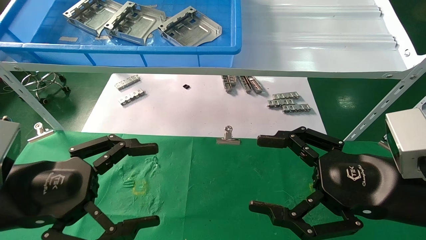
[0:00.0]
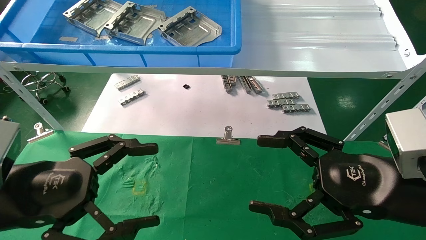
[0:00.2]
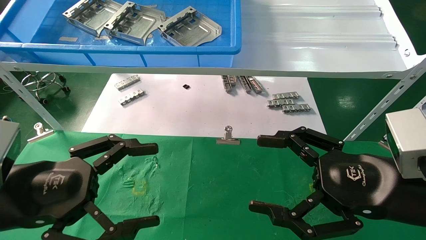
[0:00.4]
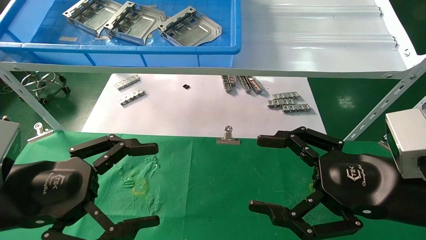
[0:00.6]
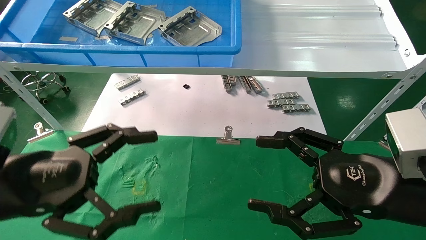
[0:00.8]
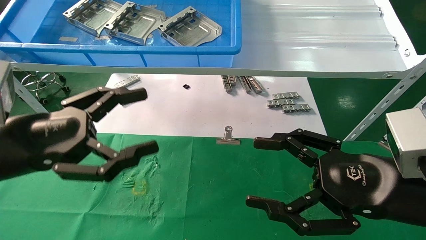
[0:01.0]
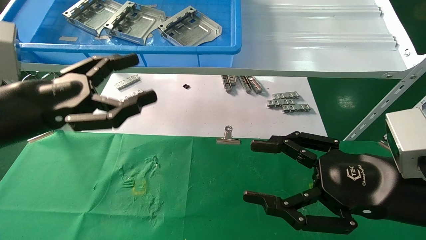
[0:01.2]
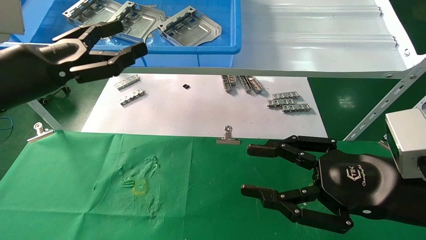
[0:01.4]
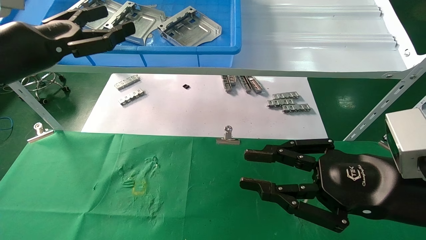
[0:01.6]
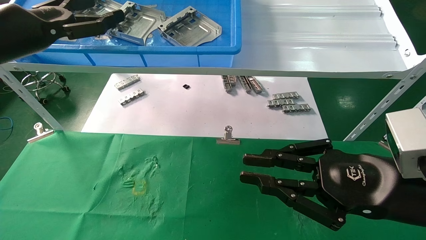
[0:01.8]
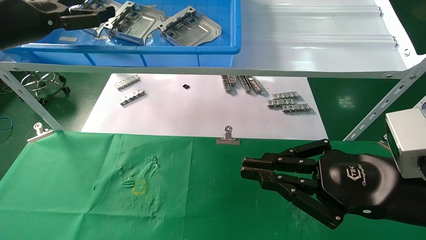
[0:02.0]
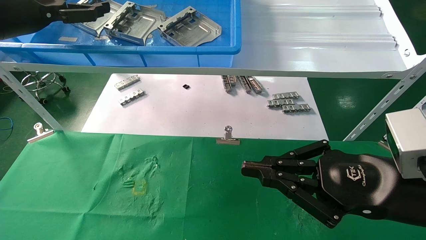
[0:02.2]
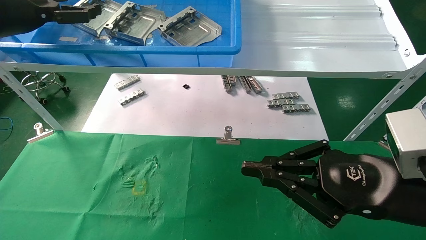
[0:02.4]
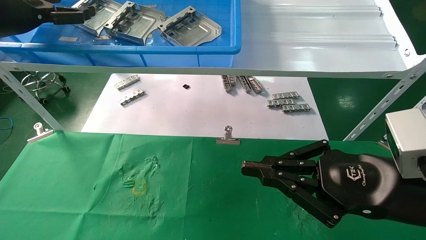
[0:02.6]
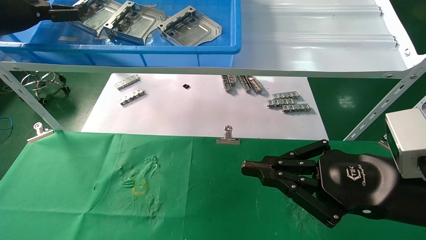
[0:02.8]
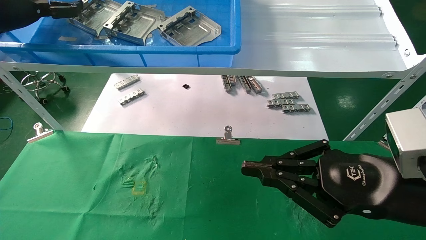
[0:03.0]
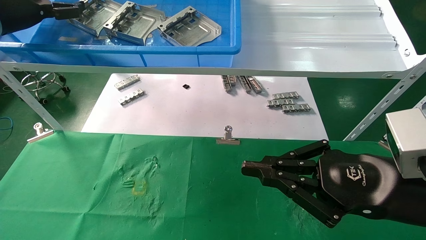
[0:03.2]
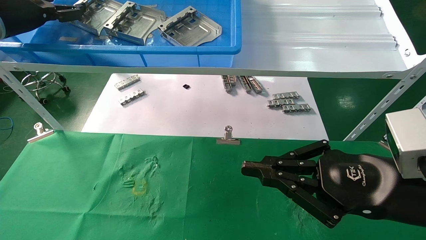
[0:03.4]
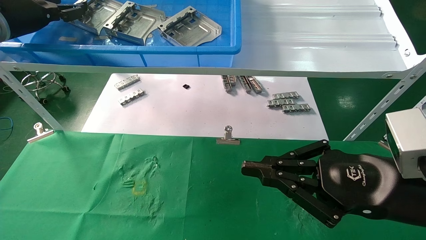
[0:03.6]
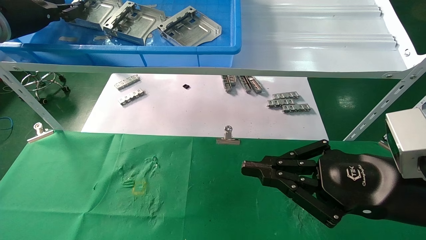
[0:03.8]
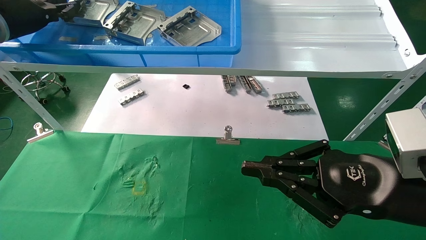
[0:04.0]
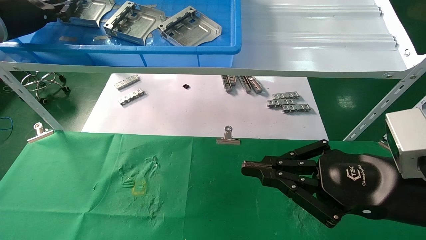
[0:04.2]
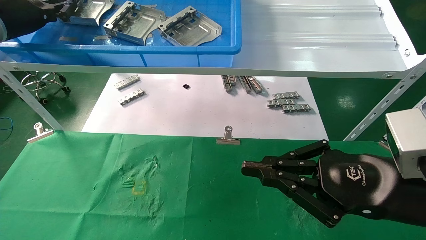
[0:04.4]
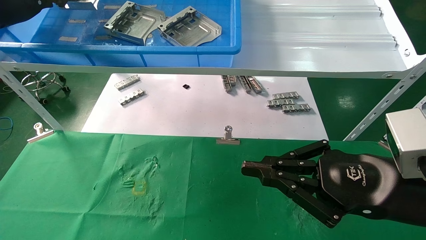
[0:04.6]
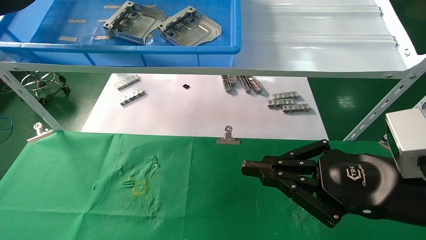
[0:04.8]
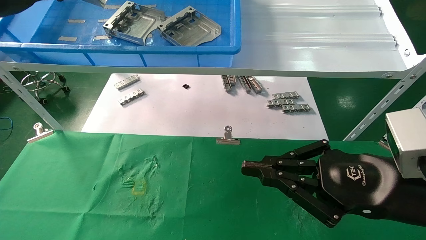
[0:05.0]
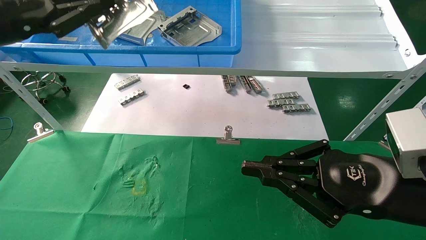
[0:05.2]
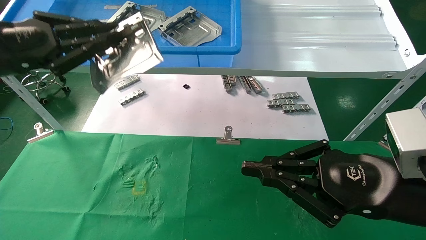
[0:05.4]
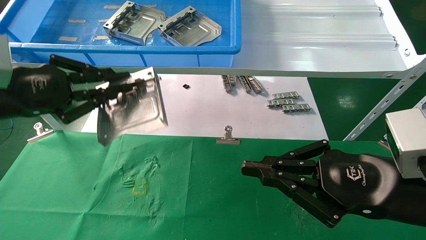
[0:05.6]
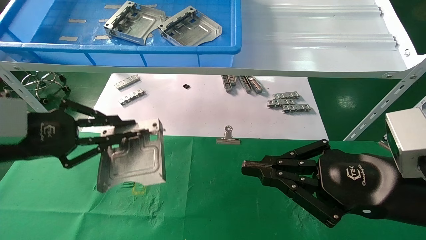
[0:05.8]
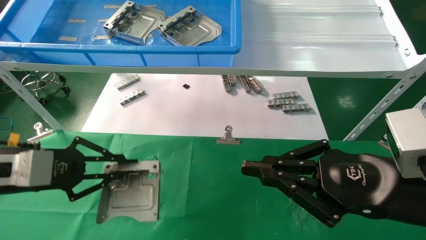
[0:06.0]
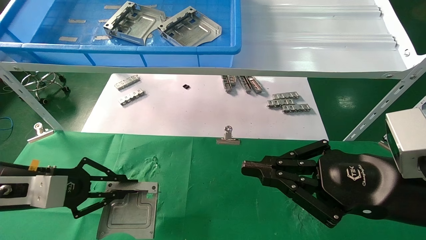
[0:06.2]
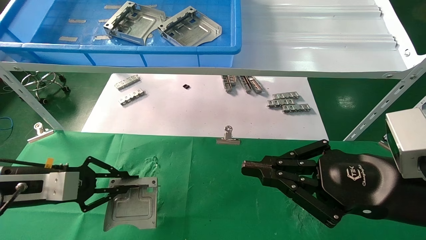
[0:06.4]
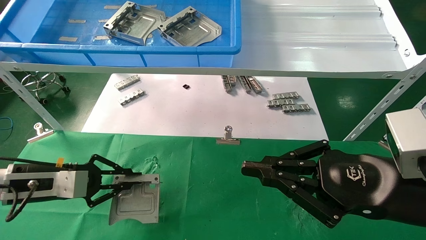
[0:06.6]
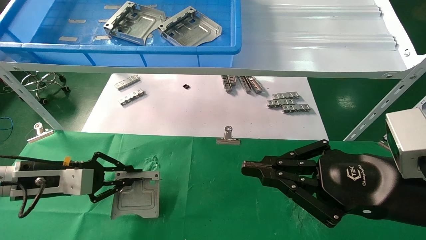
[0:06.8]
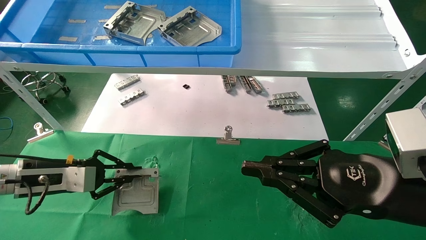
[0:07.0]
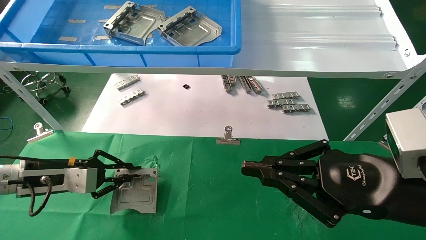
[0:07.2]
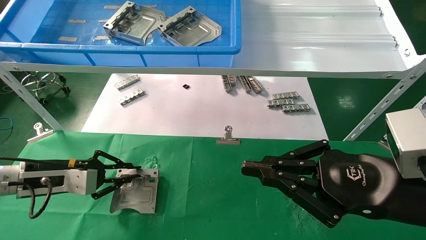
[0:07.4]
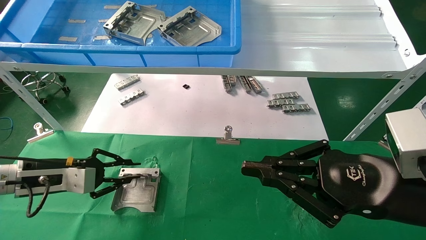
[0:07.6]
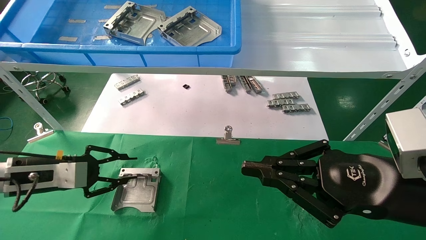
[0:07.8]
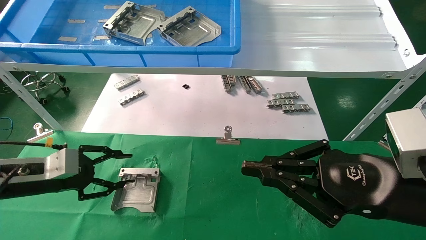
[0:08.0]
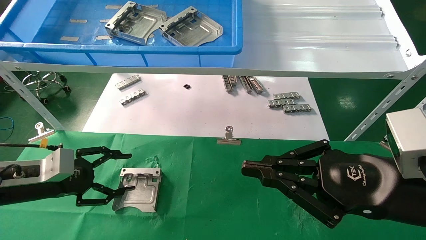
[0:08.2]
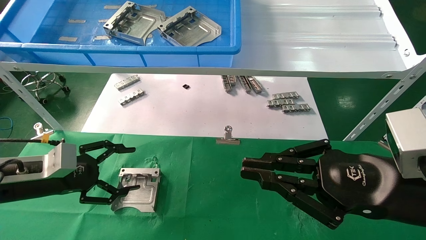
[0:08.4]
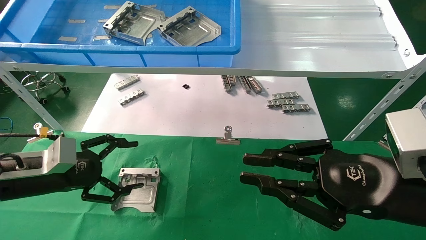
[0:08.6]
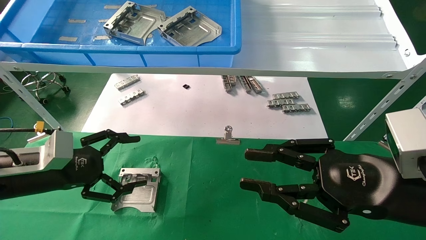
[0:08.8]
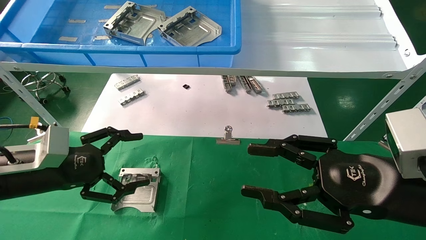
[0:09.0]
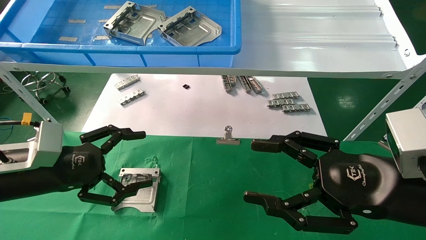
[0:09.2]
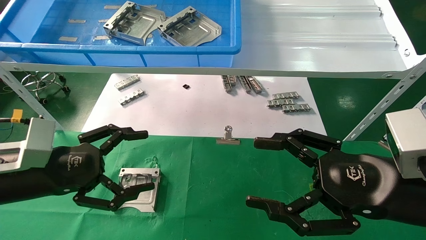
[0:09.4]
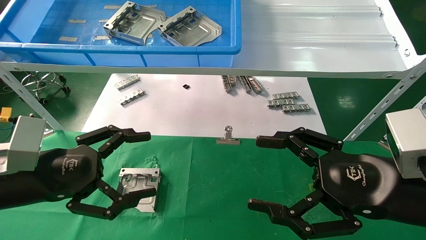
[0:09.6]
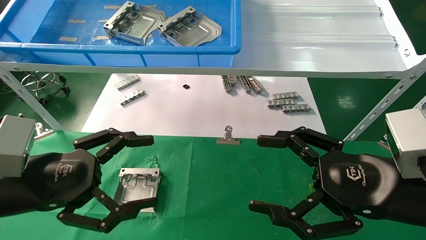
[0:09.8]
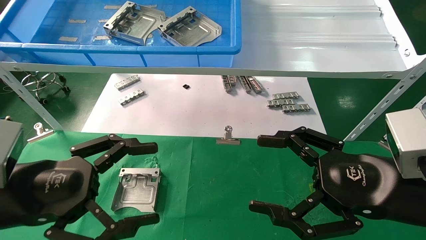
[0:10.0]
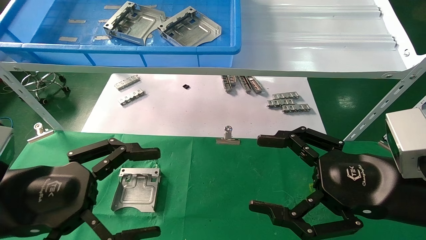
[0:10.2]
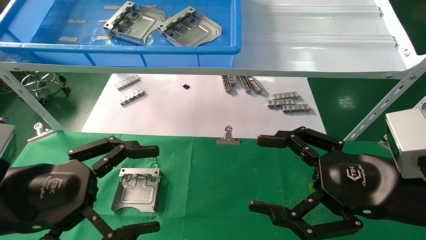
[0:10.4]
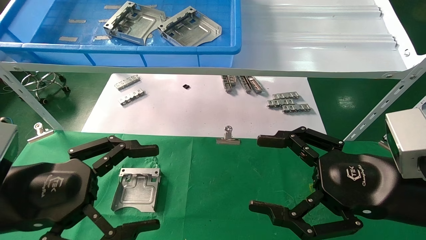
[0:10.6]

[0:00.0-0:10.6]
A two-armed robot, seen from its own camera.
Task of the whole recording: use the mechanical arm to pick up the parts and place them on the table.
Step, 0:01.2 to 0:04.4: Pick up the hard drive bracket from the feeding area.
Step, 0:04.6 to 0:07.6: Place the hard drive bracket into the box.
0:00.0 to 0:01.6: The left gripper moves upward and forward, about 20 cm. Meanwhile the right gripper closes its fingers.
0:01.6 to 0:03.0: The left gripper goes approximately 15 cm forward, upward and to the left. The right gripper closes up.
0:03.0 to 0:04.6: The left gripper closes up.
0:04.6 to 0:06.0: The left gripper shifts some 25 cm downward and backward.
0:06.0 to 0:07.6: The left gripper heads downward and forward, covering roughly 10 cm.
0:07.6 to 0:09.0: The left gripper travels backward by about 5 cm, and opens its fingers; the right gripper opens up.
0:09.0 to 0:10.6: The right gripper opens its fingers; the left gripper shifts about 10 cm backward.
